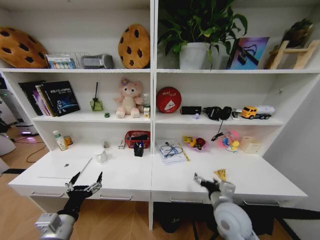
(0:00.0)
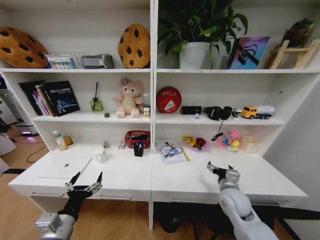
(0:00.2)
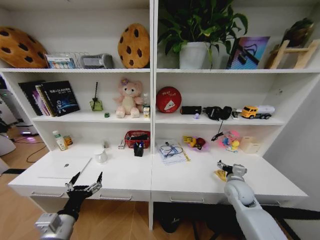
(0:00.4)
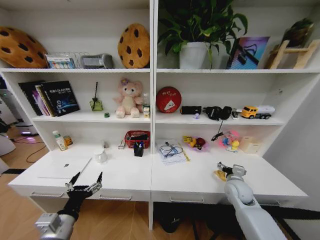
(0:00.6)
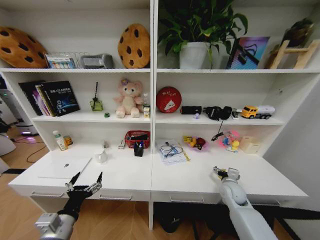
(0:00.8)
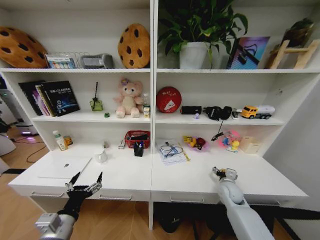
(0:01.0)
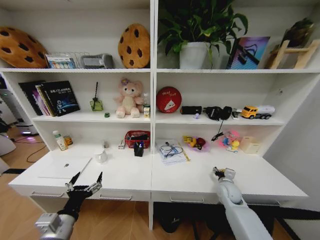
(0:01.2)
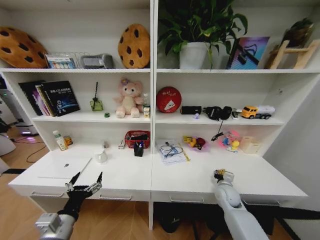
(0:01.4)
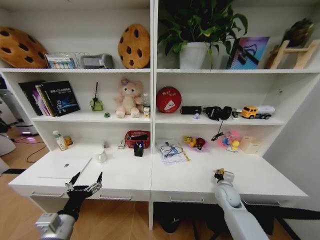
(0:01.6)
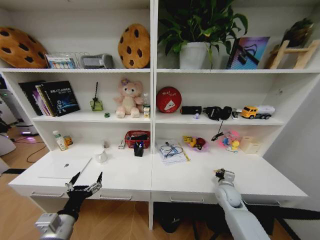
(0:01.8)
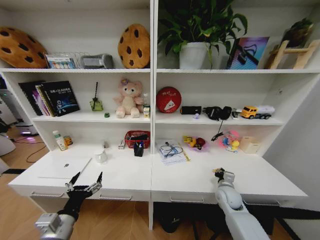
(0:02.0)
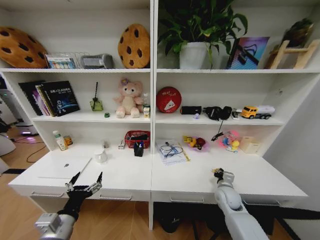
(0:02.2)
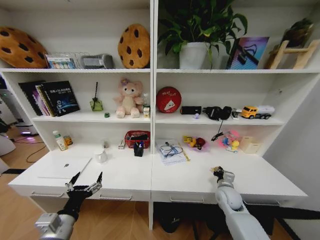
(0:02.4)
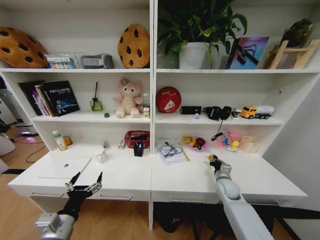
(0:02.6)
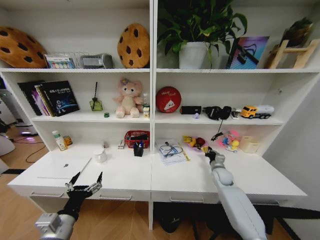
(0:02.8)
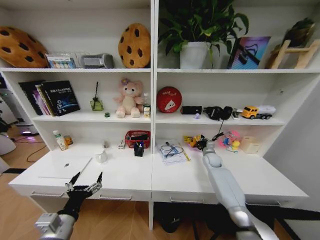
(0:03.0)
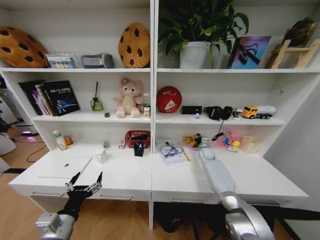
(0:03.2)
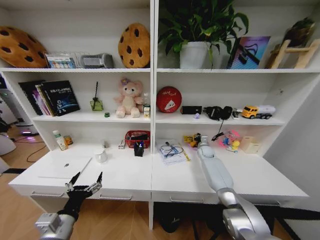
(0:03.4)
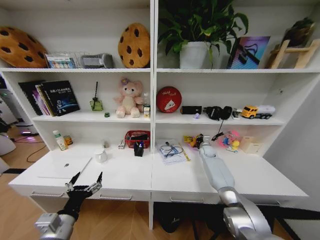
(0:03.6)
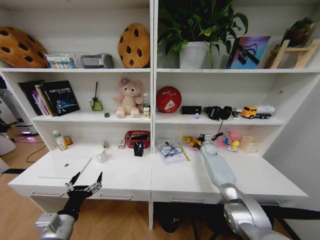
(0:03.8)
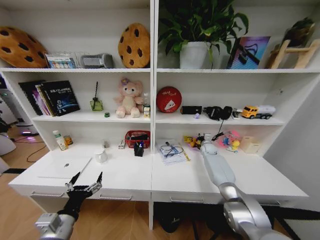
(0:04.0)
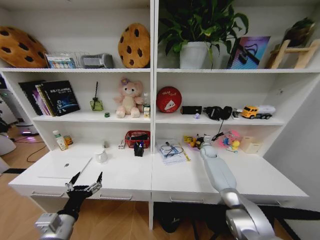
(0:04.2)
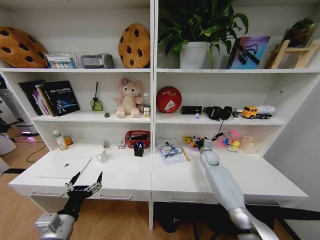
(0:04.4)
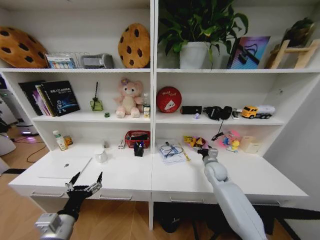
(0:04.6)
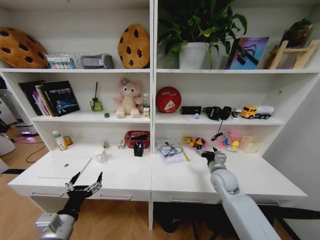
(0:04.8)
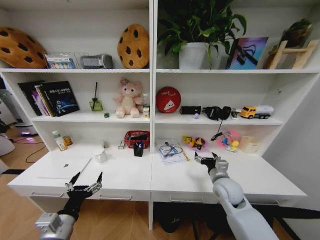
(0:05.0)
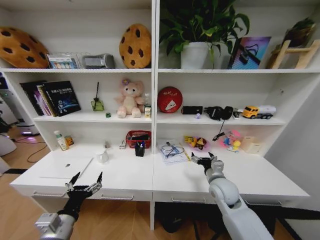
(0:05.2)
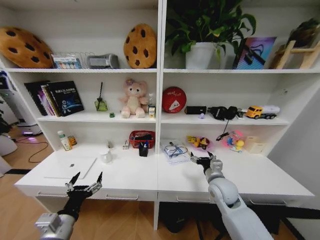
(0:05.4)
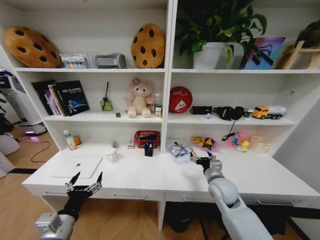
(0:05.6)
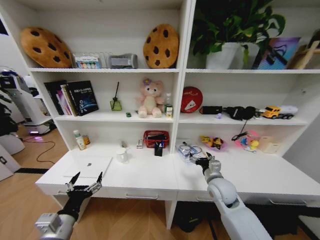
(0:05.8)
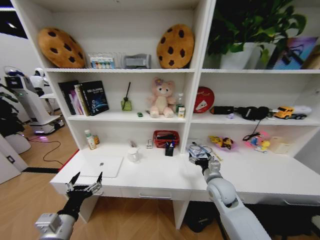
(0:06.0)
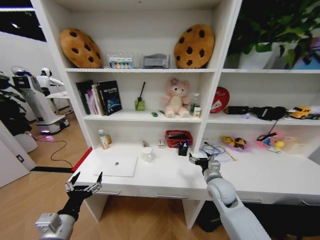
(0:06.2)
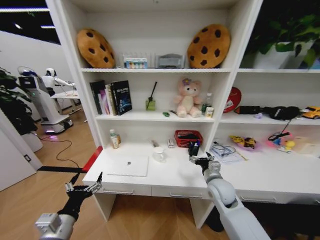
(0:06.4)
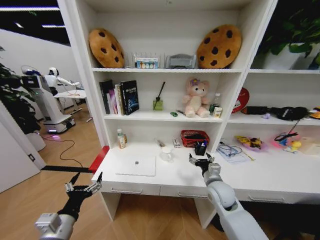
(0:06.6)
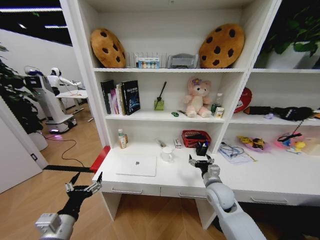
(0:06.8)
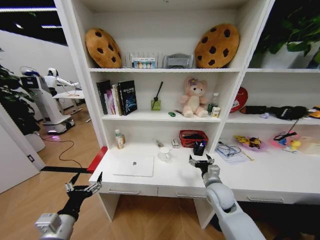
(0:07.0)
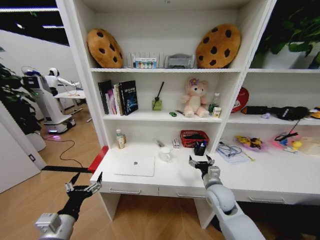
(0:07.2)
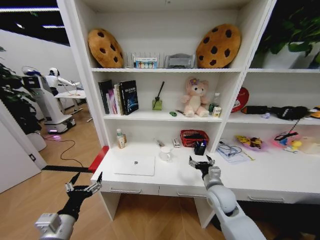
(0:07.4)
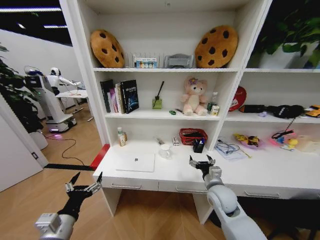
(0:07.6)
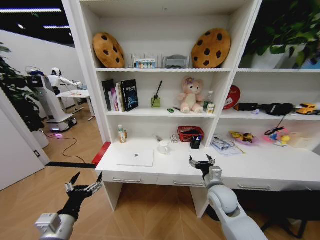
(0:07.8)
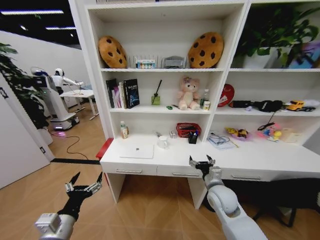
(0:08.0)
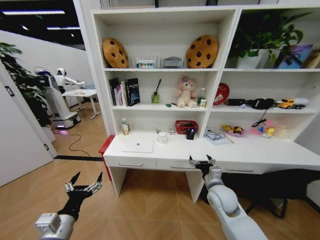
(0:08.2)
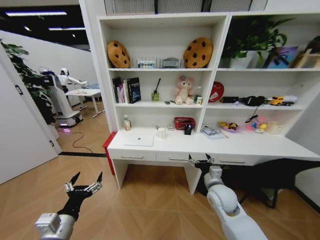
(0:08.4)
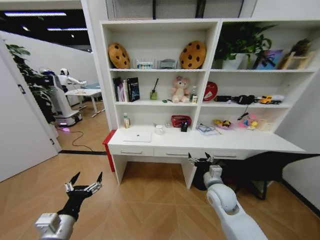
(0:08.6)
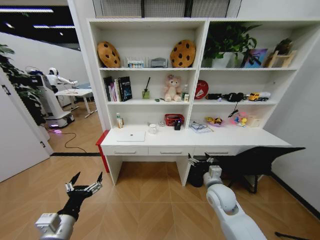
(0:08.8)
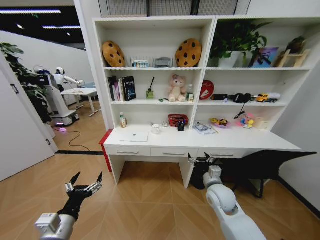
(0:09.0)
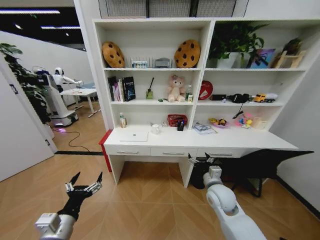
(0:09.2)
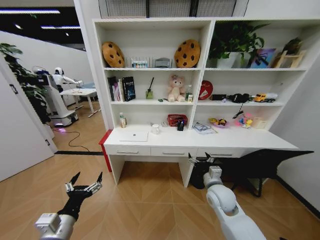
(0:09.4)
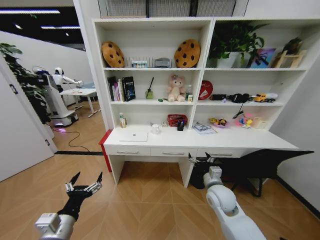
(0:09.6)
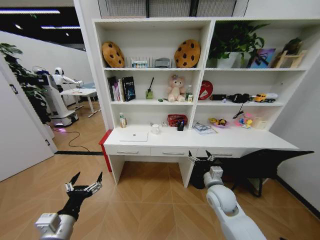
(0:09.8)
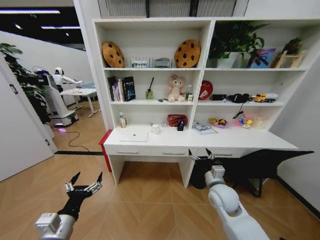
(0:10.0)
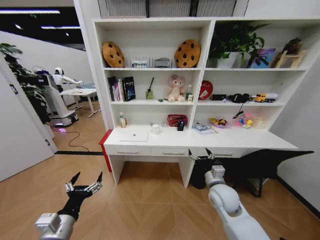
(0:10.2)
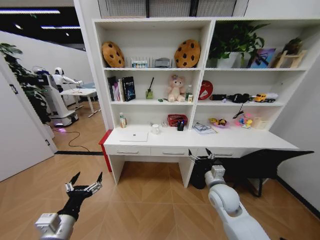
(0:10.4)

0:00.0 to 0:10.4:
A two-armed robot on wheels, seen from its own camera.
Task of the whole recording: Organize the objects on the table.
0:00.0 to 0:01.4: The right gripper travels forward, to the right and downward by roughly 20 cm, and closes up.
0:01.4 to 0:03.0: The right gripper moves forward, roughly 20 cm, and closes.
0:03.0 to 0:04.4: The right gripper opens.
0:04.4 to 0:06.0: The right gripper heads backward, covering approximately 20 cm.
0:09.0 to 0:10.4: There are only small adjustments of the grippers.
